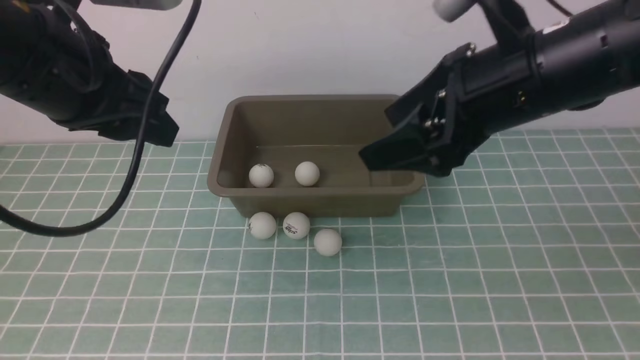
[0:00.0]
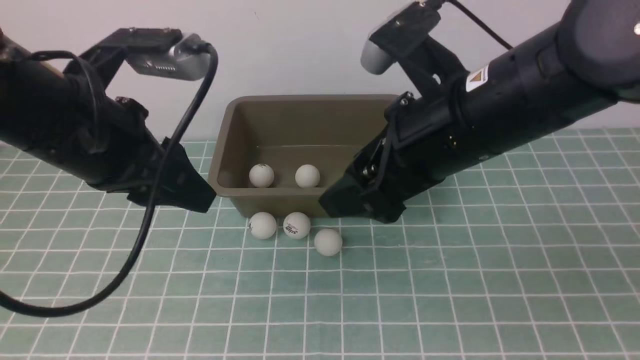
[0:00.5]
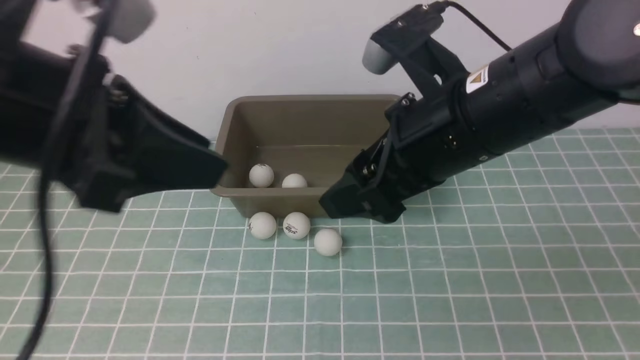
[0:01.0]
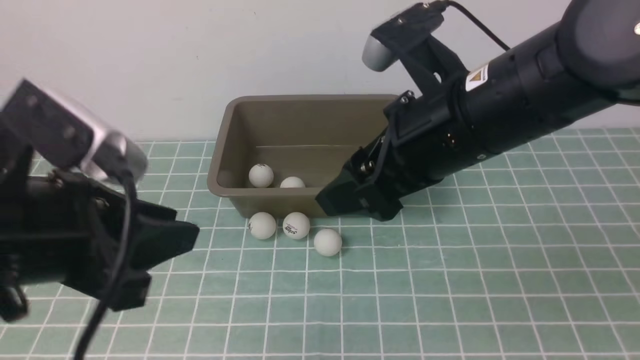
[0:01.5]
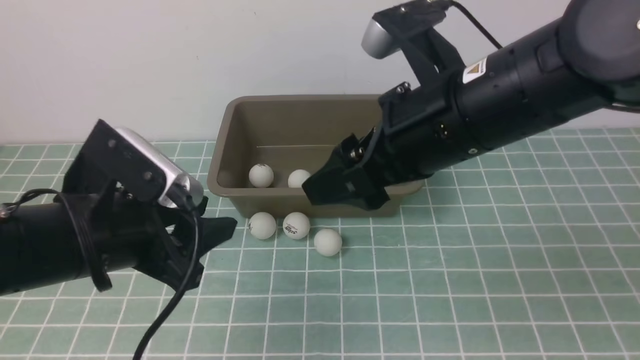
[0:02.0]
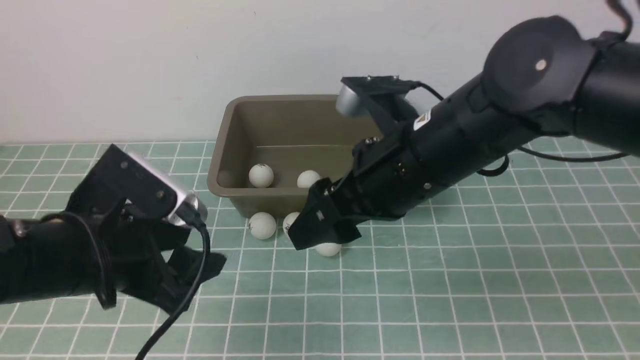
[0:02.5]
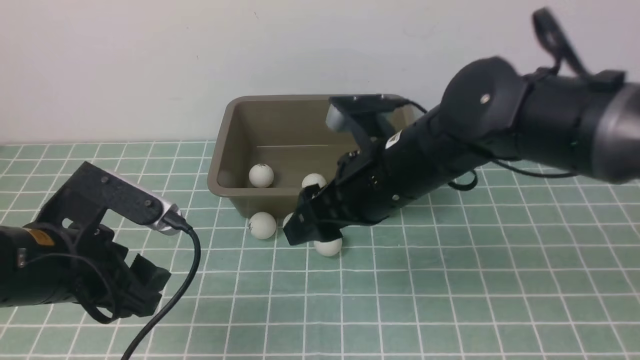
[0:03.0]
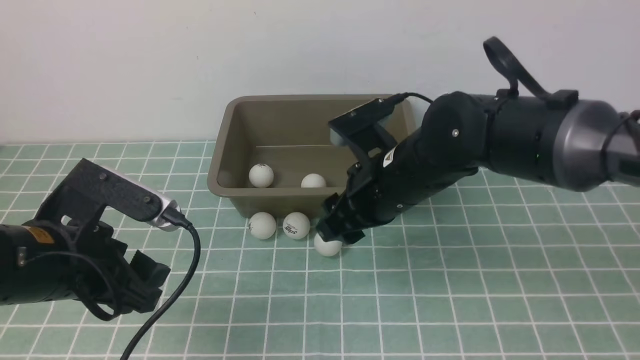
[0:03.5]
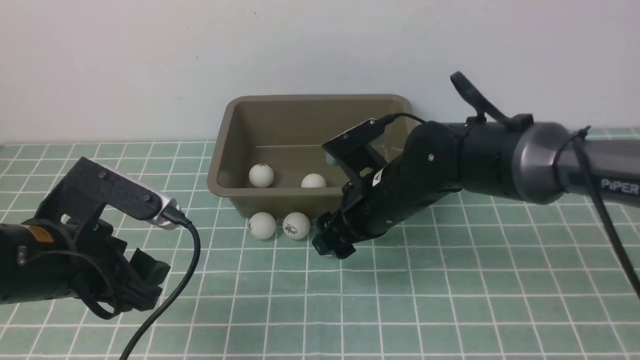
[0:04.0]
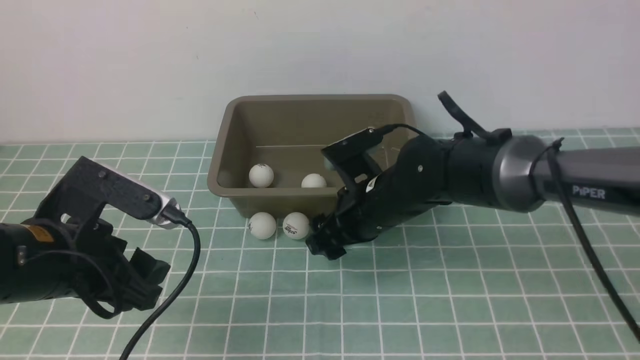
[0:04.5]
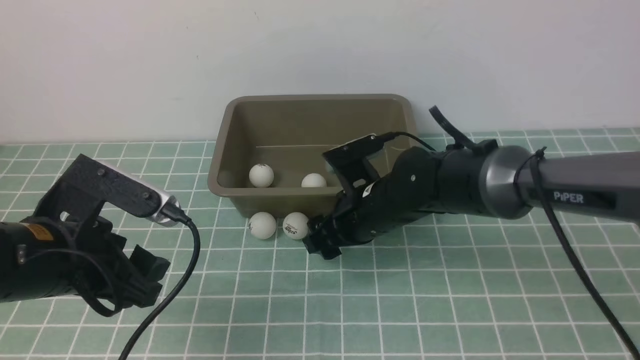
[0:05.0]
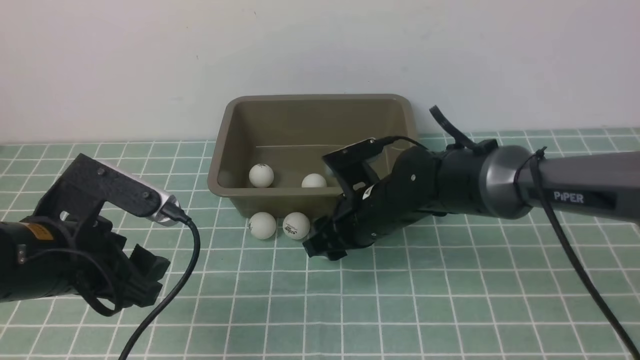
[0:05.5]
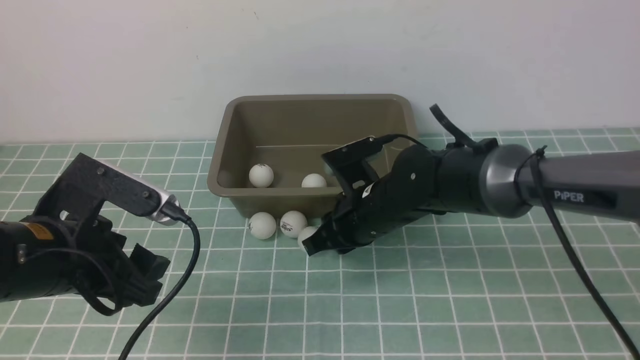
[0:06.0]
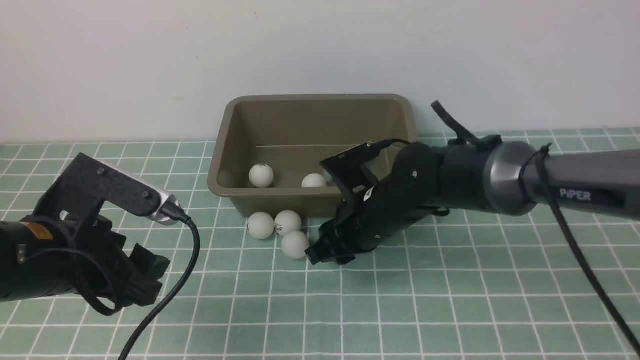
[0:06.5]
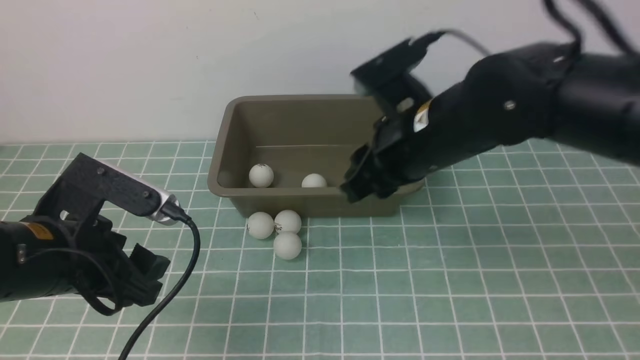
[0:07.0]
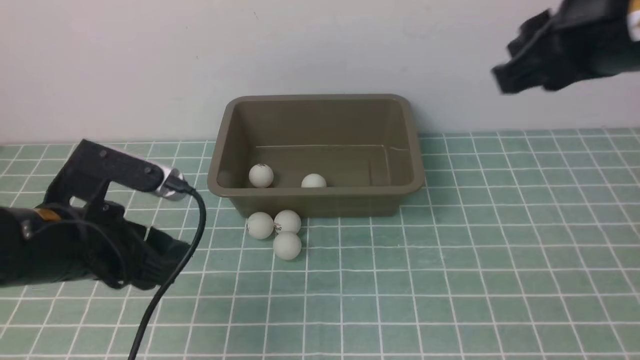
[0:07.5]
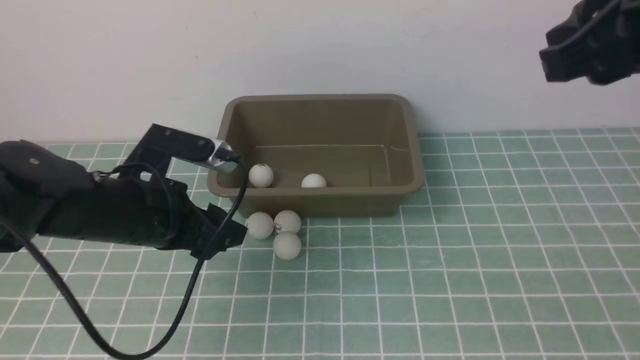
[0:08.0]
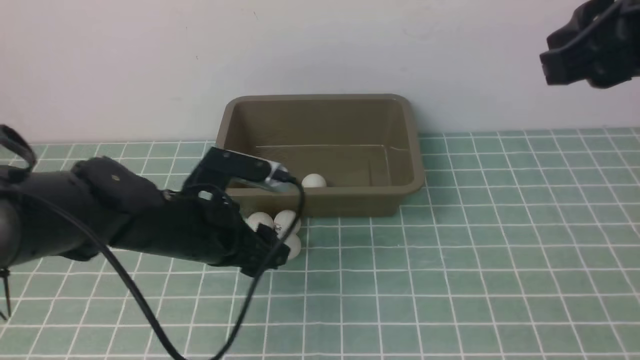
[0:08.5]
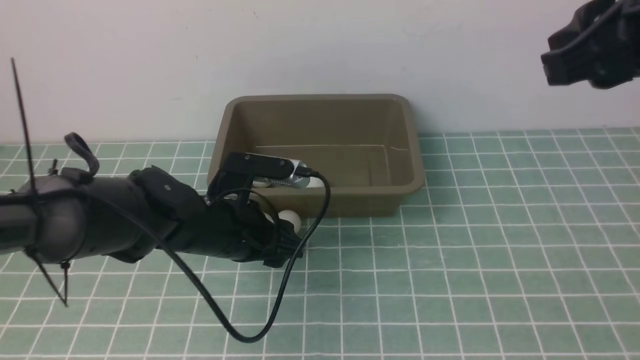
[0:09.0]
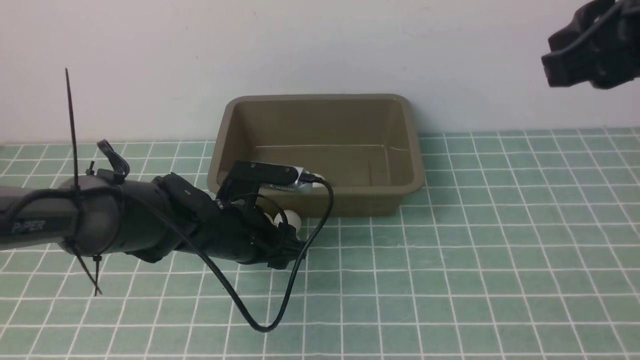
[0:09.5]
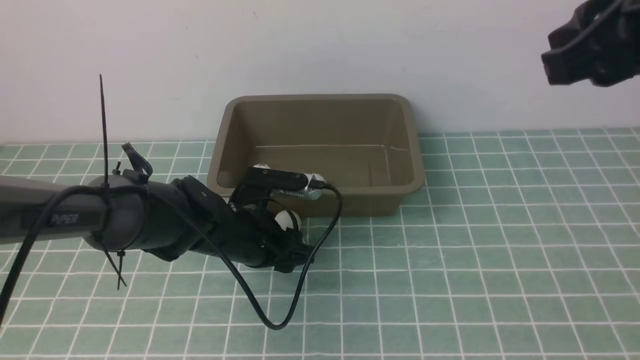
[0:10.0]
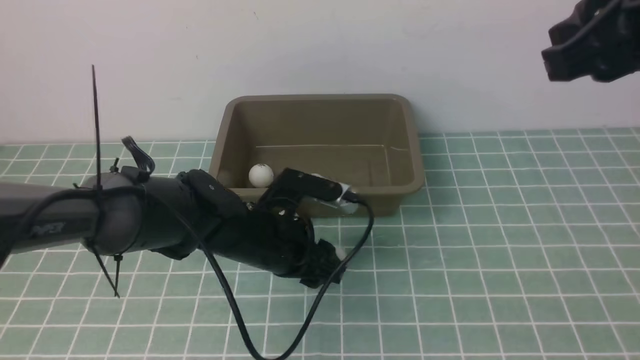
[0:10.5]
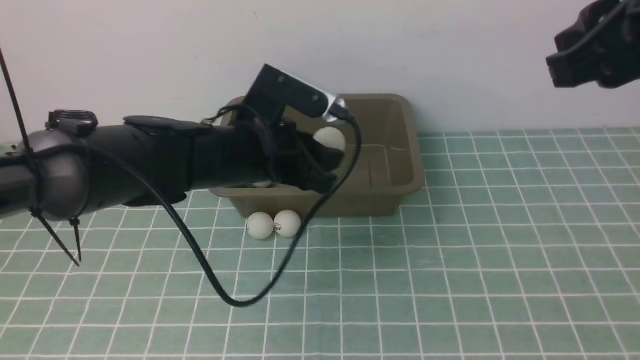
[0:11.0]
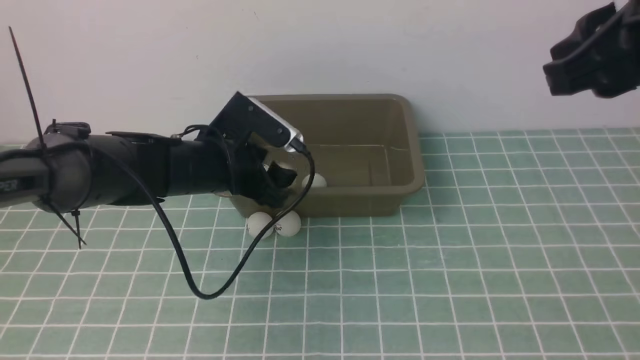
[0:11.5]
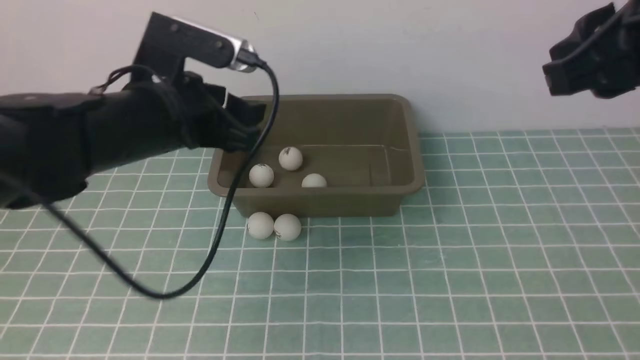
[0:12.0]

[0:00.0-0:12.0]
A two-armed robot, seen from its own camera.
Step, 0:00.0 to 0:10.5: use the left arm to clamp the table tennis ball closest to it.
Step, 0:11.0 to 0:11.5: use the left arm to put the table tennis ball into the box.
0:00.0 to 0:02.0: The left gripper is displaced downward by some 10 cm.
0:02.0 to 0:04.0: The right gripper moves downward and forward, roughly 15 cm.
0:04.0 to 0:06.0: The right gripper closes.
0:06.0 to 0:08.0: The left gripper heads forward and to the right, covering about 10 cm; the right gripper heads upward, to the right and backward, covering about 35 cm.
0:08.0 to 0:10.0: The left gripper is displaced downward and to the right by approximately 10 cm.
0:10.0 to 0:12.0: The left gripper travels upward and backward by roughly 20 cm.

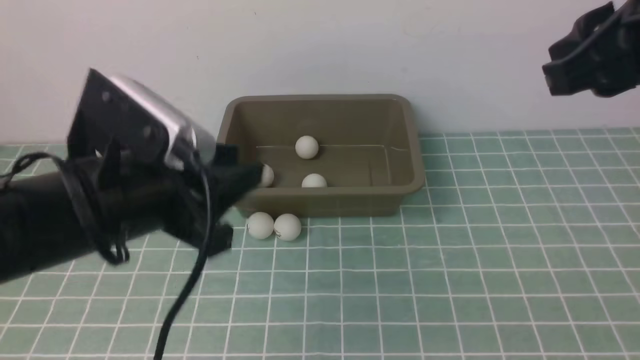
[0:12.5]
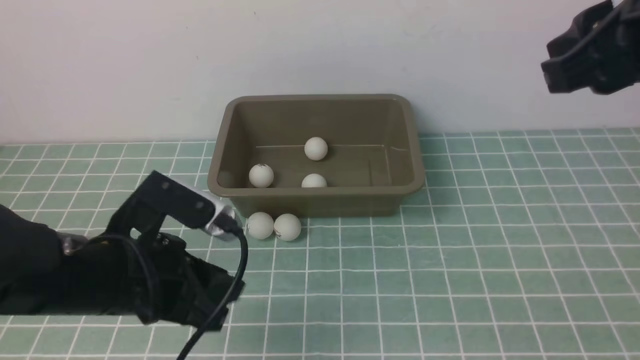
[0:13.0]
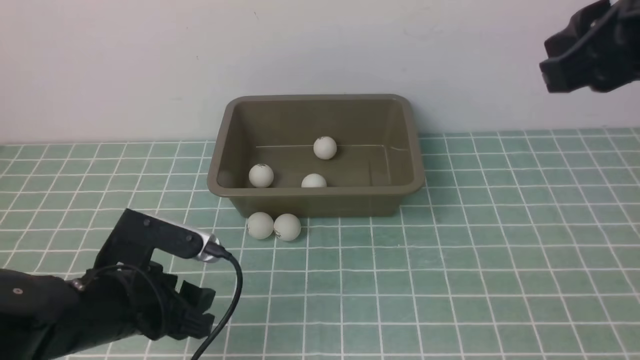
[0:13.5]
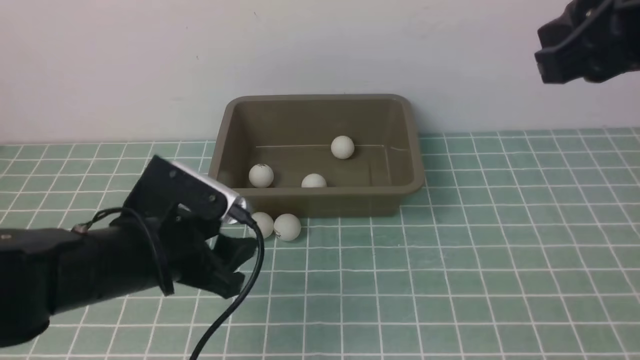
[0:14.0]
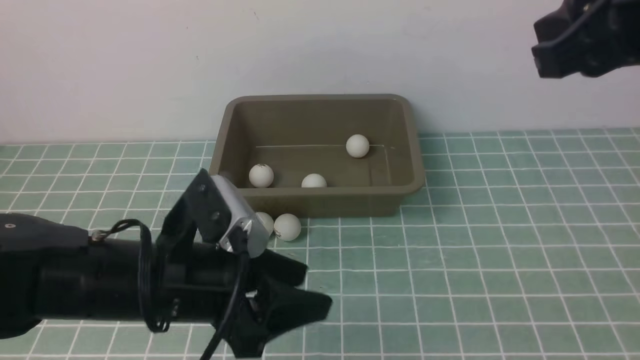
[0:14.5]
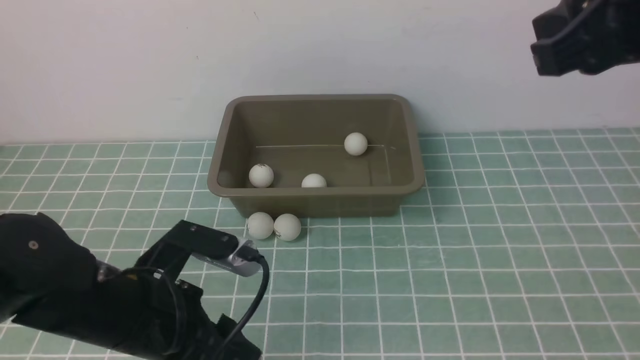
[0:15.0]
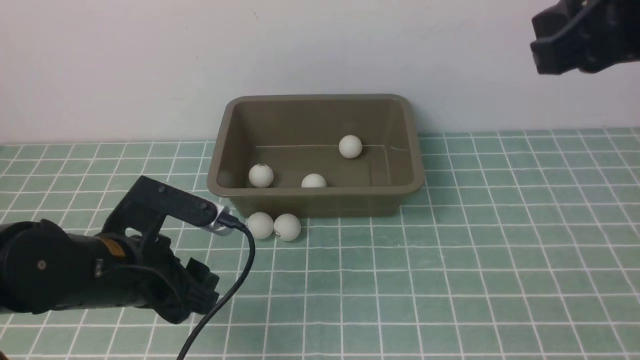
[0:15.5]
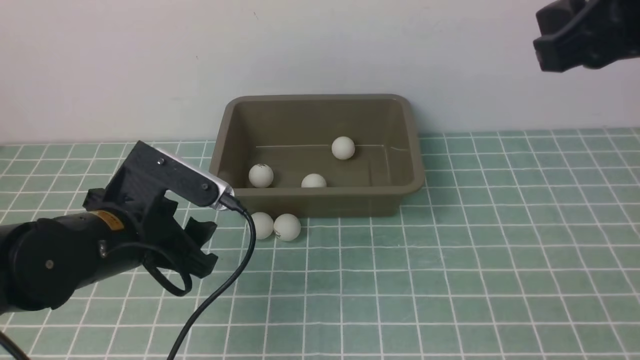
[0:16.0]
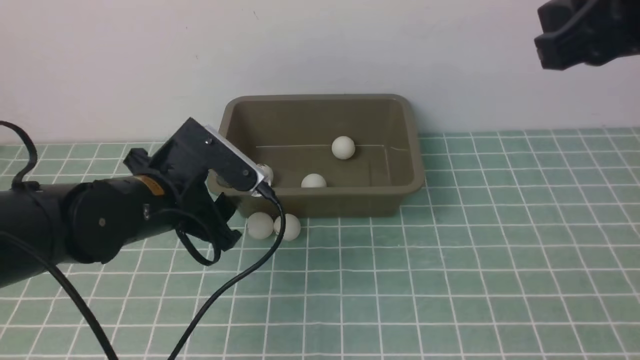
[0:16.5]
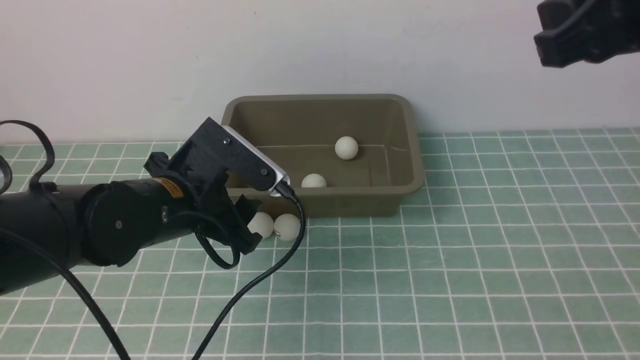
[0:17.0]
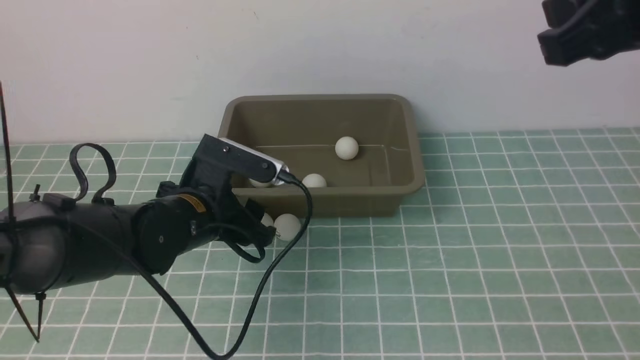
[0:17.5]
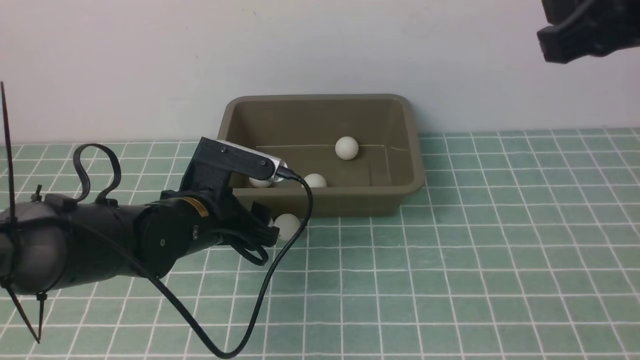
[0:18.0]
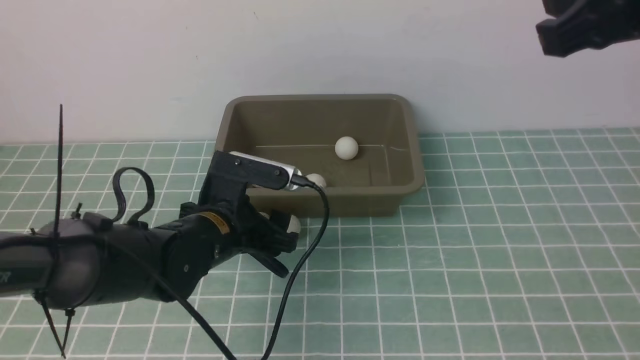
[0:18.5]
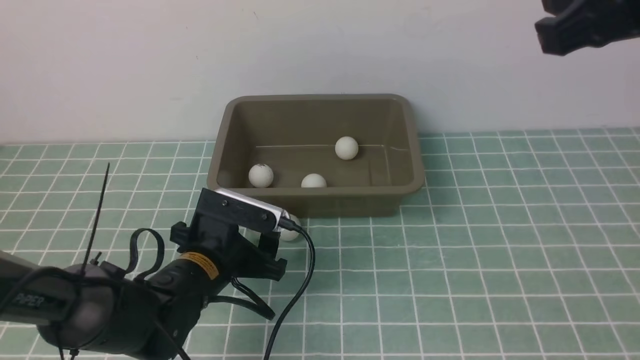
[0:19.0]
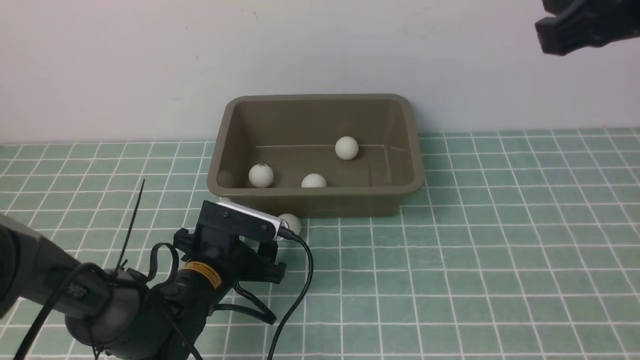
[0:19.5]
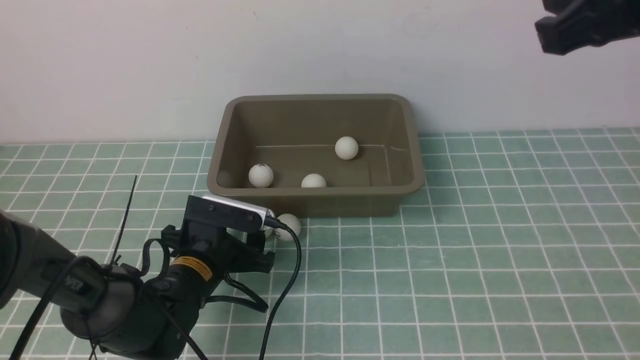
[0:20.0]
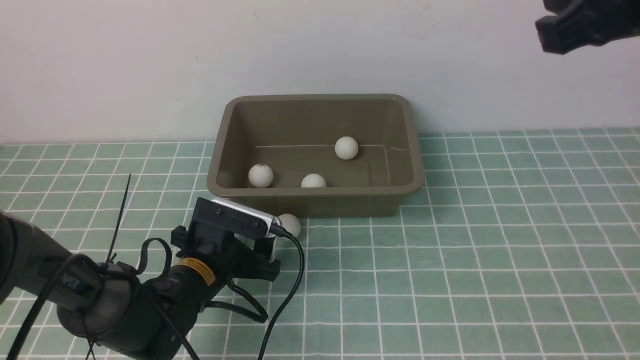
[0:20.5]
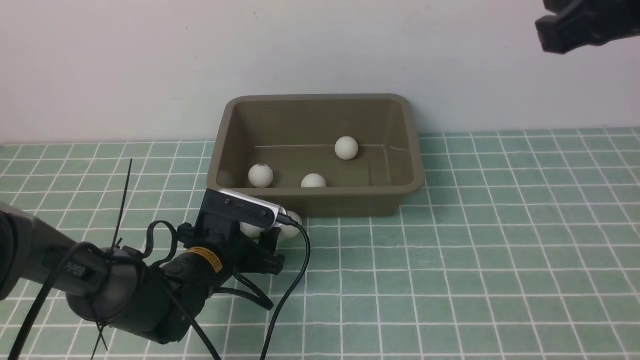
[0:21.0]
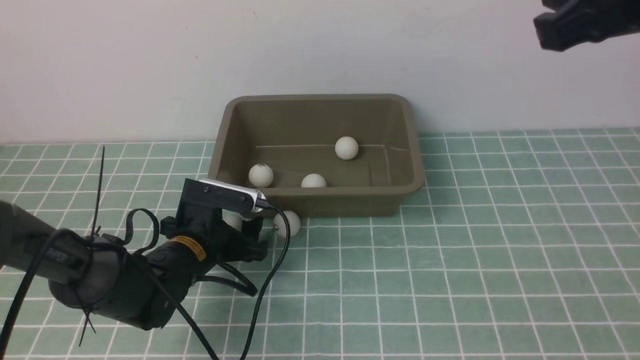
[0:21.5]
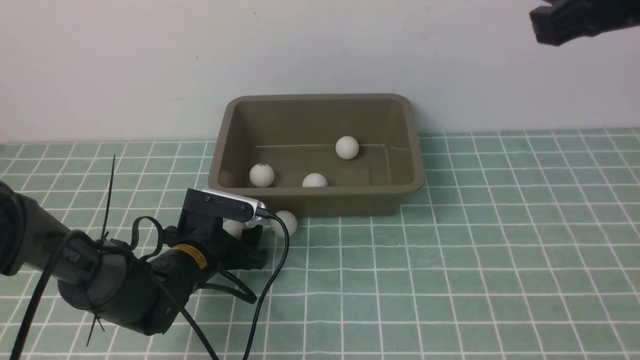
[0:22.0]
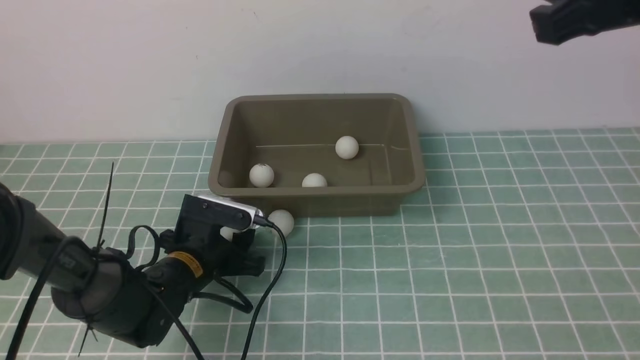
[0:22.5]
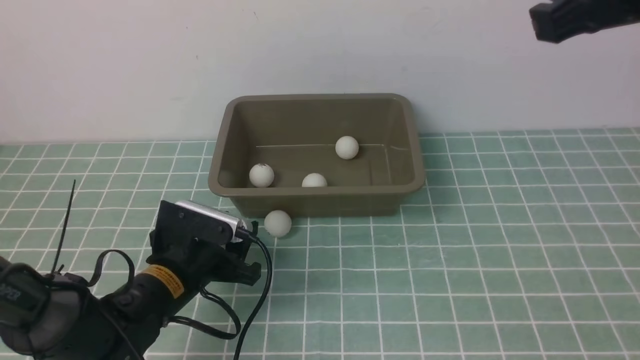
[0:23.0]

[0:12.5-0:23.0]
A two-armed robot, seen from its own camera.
Step, 0:12.5 to 0:22.5: use the left arm to clamp the table tennis ball closest to it.
0:12.5 to 0:14.5: The left gripper opens up.
0:14.5 to 0:16.5: The left gripper travels forward by some 10 cm.
0:16.5 to 0:19.0: The left gripper is displaced downward by approximately 10 cm.
0:19.0 to 0:21.0: The grippers make only small movements.
0:21.0 to 0:23.0: The left gripper ends up approximately 5 cm from where it was, and closes.
